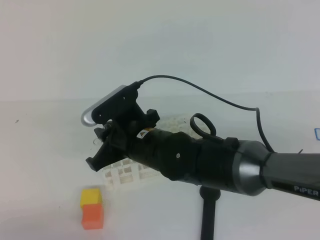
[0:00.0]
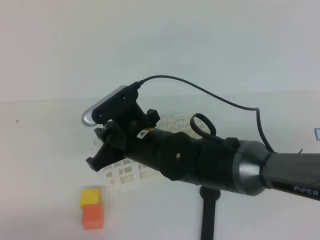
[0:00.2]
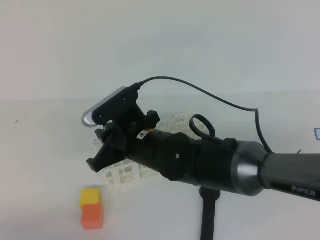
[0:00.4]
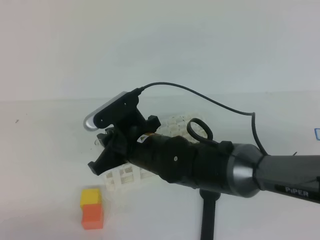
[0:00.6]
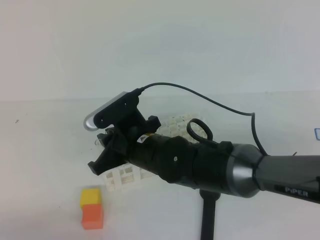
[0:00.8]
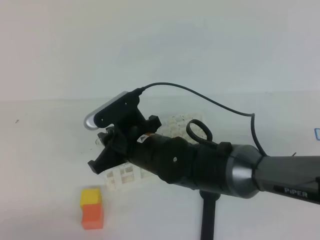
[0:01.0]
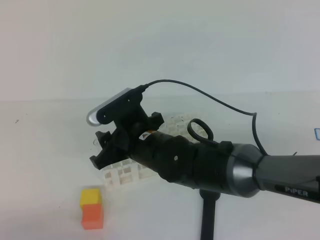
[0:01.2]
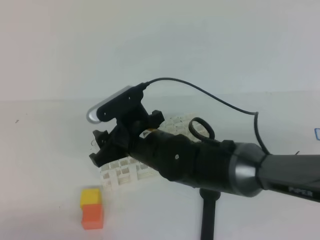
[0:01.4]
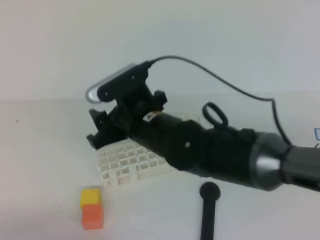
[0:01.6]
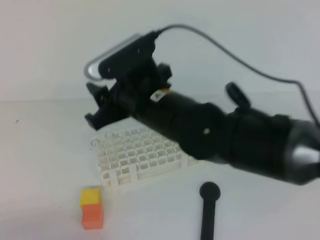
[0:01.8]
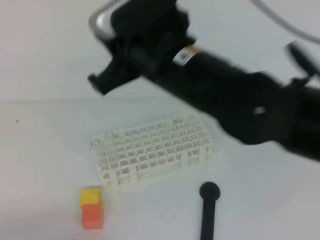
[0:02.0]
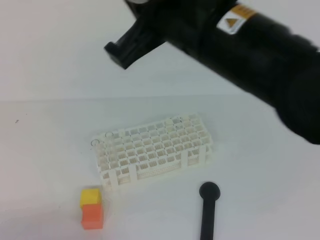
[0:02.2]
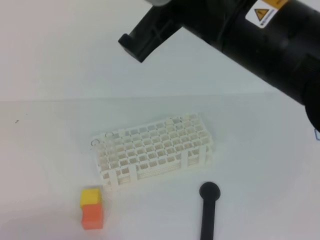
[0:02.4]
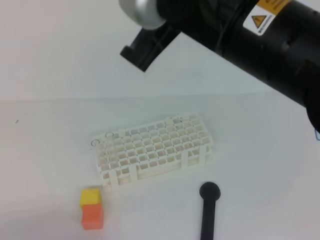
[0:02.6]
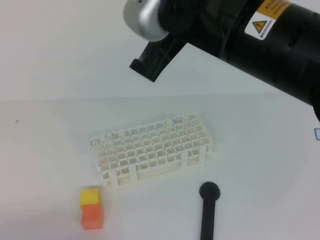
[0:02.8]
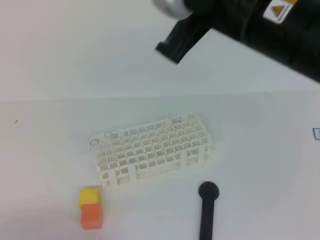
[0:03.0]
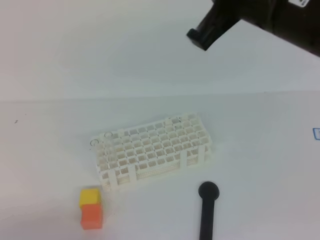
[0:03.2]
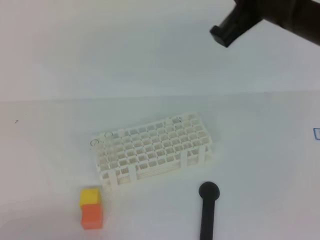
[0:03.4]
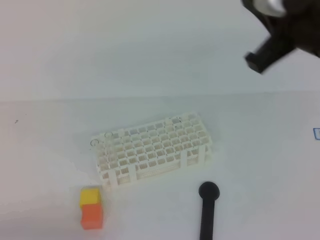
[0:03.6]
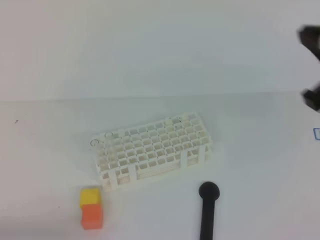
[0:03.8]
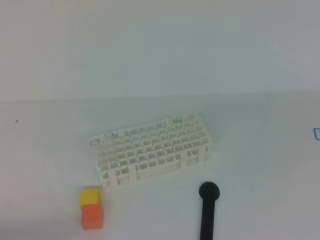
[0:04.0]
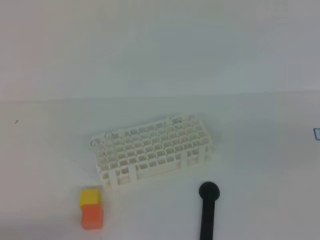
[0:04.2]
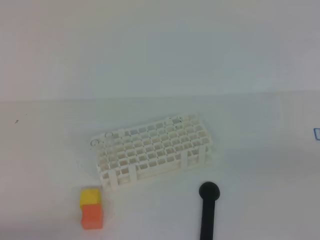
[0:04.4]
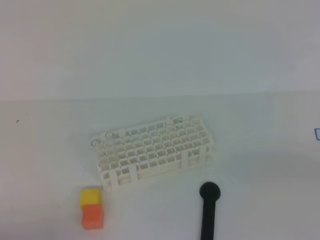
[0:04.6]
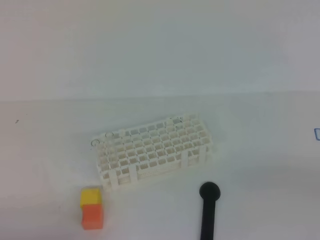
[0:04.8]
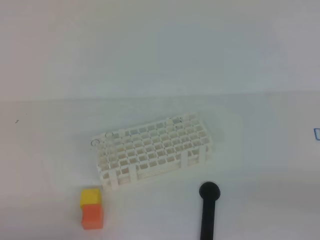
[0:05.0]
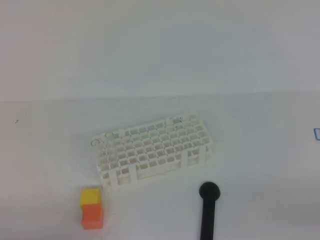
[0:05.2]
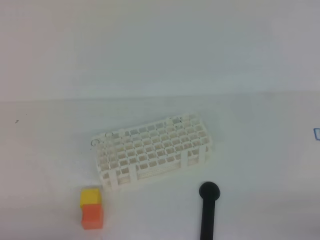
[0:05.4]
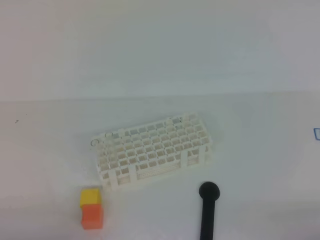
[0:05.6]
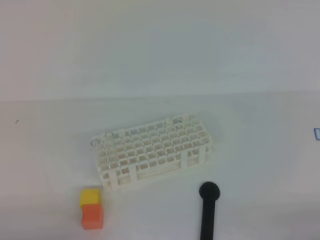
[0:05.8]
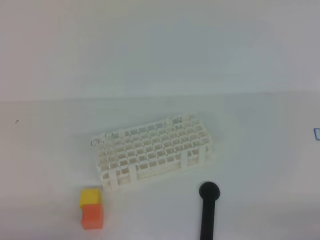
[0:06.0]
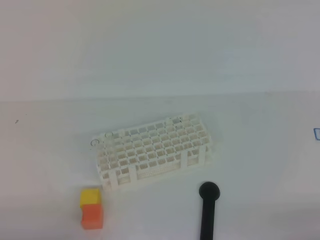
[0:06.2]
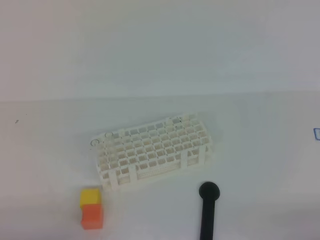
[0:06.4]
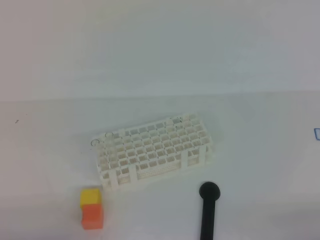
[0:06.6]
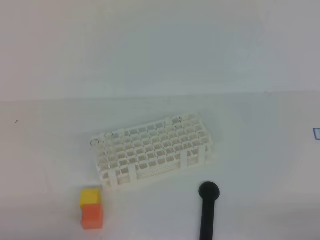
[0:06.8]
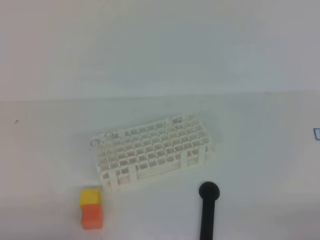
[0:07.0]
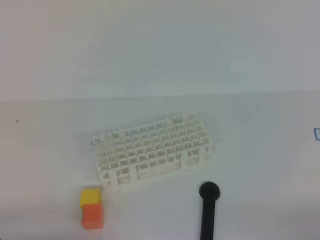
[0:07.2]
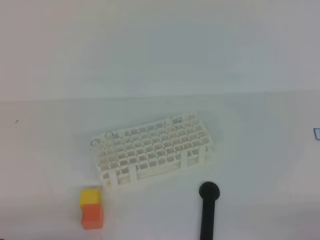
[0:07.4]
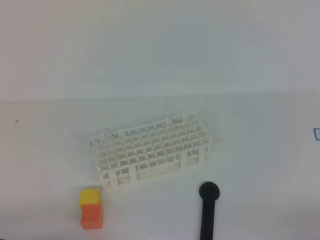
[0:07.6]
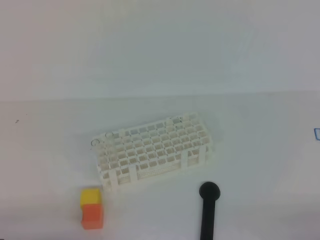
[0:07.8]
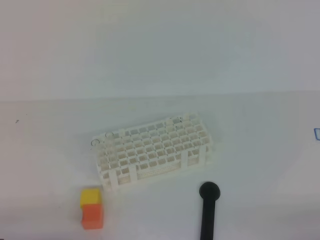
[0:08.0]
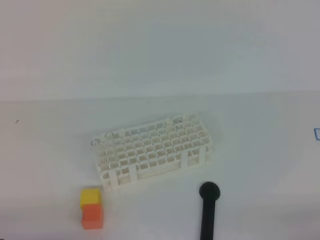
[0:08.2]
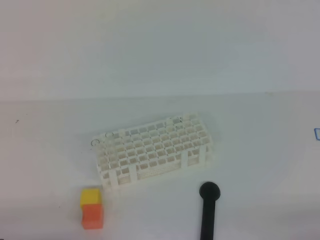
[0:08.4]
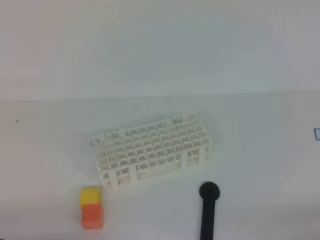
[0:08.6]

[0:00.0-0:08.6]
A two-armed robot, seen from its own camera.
0:00.0 to 0:01.4: The right gripper opens.
0:01.4 to 0:02.8: The right gripper heads upward and to the right, covering approximately 25 cm, and closes up.
0:02.8 to 0:04.4: The right gripper is displaced to the right, downward and backward by about 35 cm.
